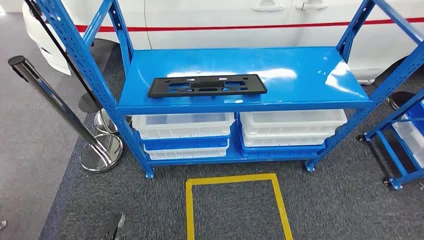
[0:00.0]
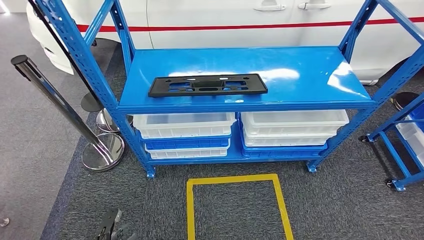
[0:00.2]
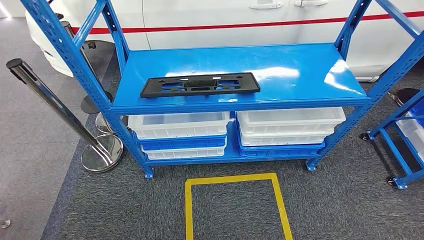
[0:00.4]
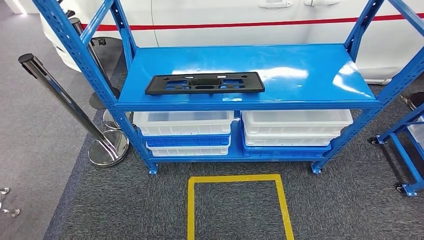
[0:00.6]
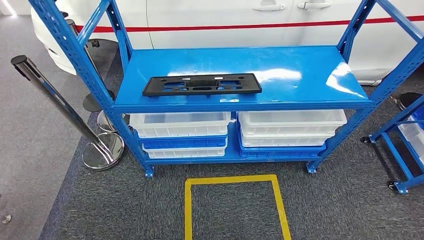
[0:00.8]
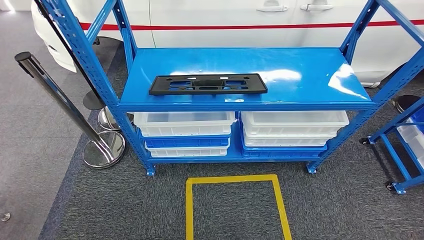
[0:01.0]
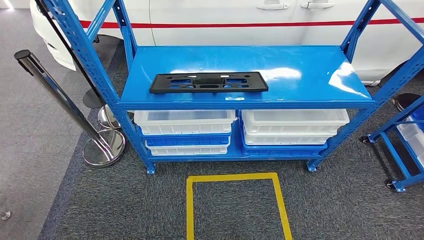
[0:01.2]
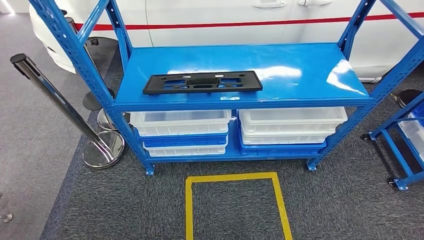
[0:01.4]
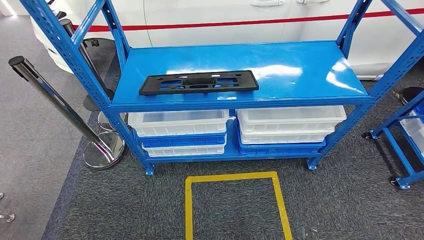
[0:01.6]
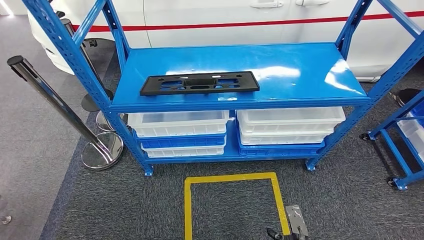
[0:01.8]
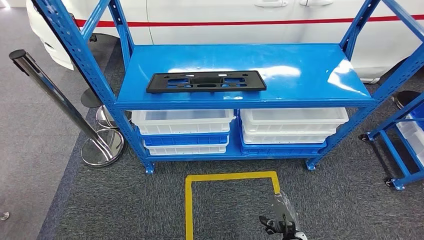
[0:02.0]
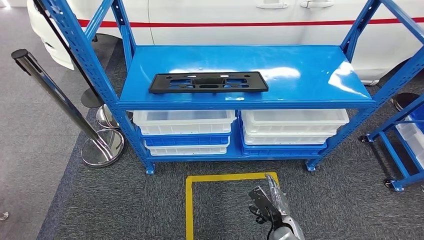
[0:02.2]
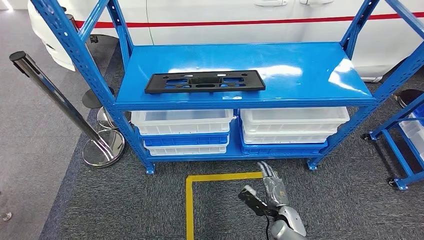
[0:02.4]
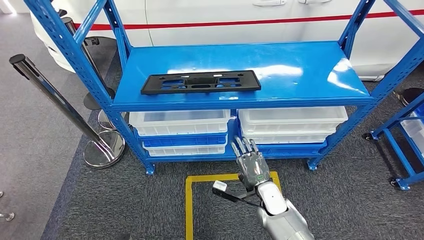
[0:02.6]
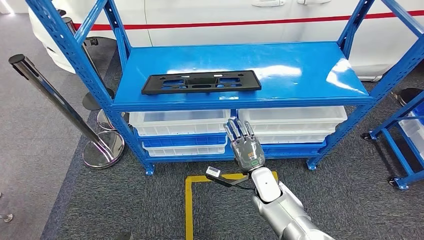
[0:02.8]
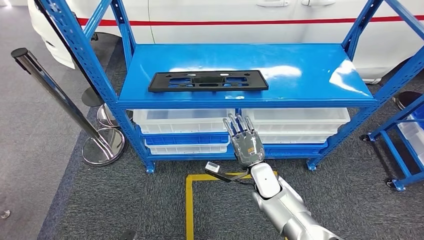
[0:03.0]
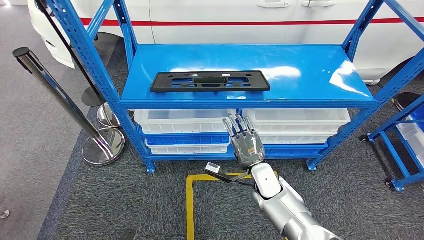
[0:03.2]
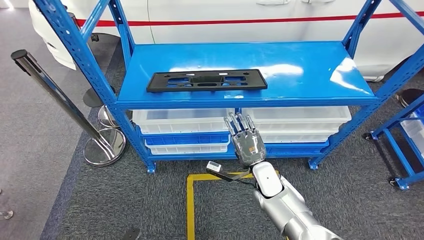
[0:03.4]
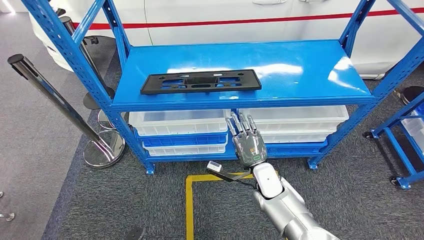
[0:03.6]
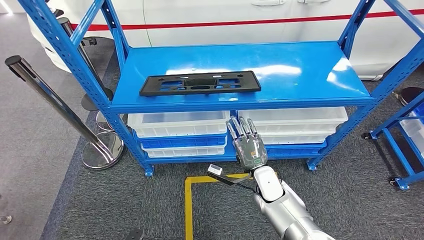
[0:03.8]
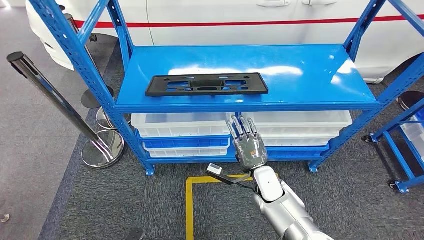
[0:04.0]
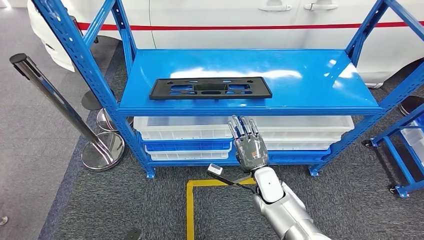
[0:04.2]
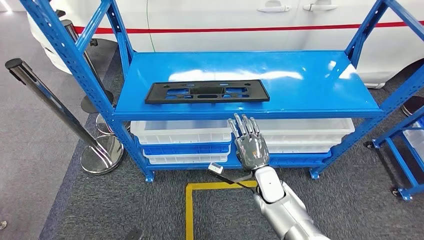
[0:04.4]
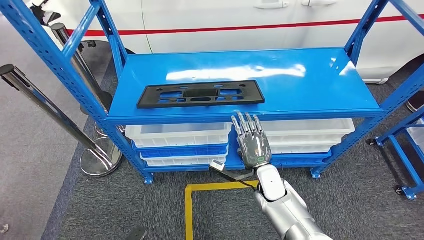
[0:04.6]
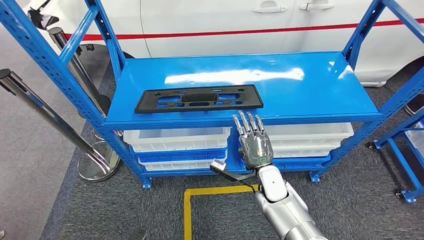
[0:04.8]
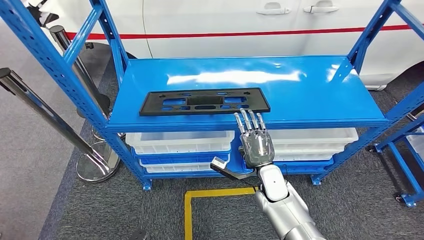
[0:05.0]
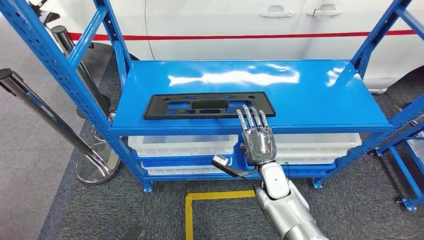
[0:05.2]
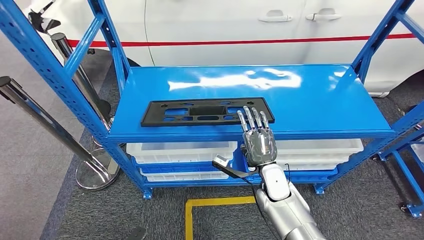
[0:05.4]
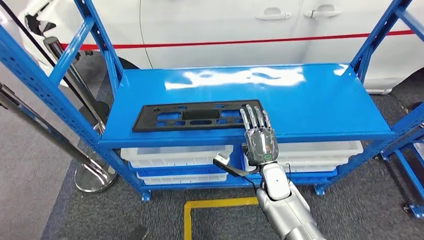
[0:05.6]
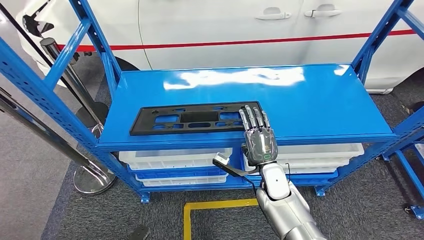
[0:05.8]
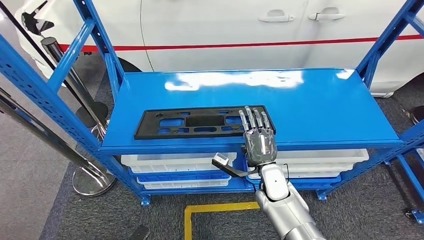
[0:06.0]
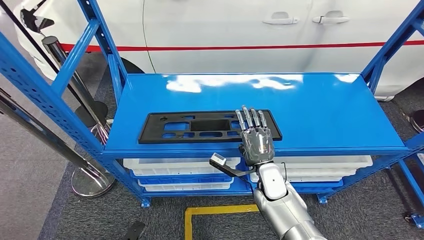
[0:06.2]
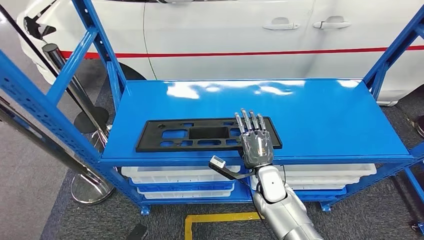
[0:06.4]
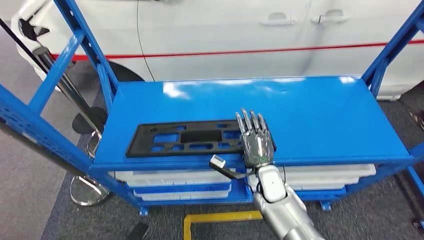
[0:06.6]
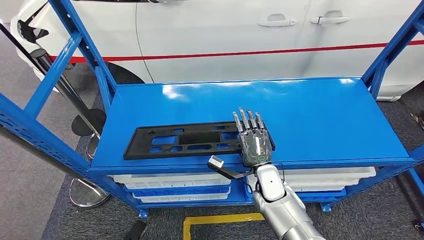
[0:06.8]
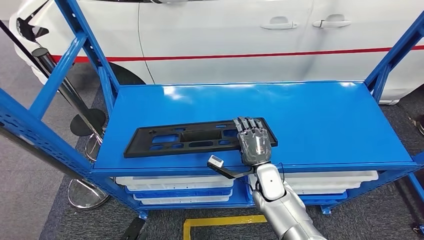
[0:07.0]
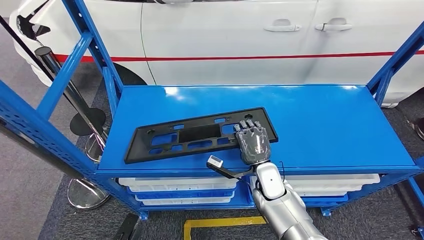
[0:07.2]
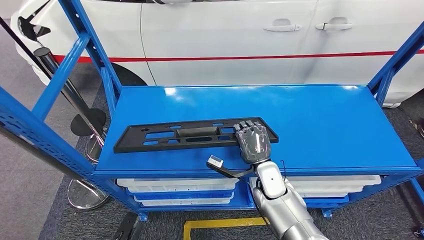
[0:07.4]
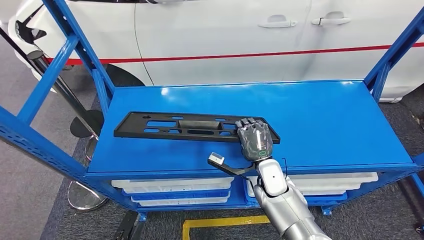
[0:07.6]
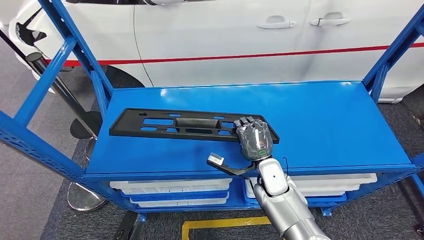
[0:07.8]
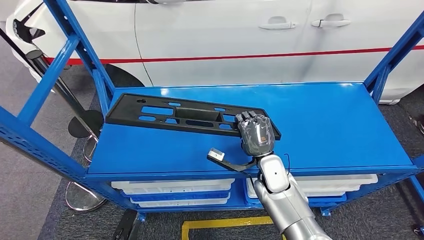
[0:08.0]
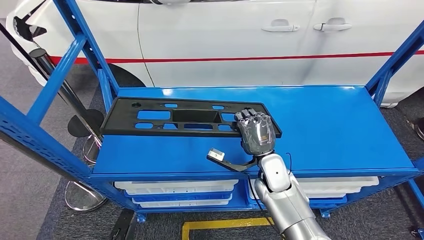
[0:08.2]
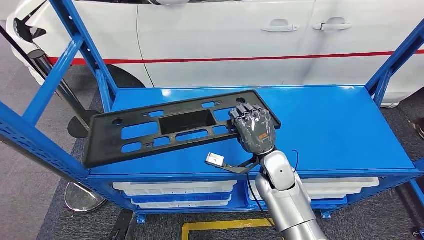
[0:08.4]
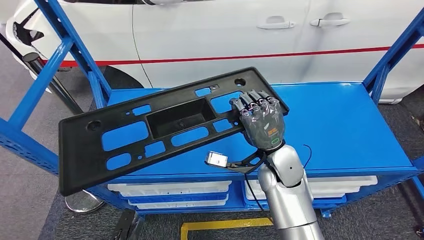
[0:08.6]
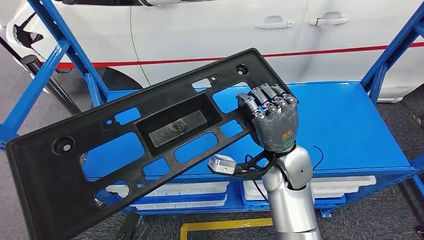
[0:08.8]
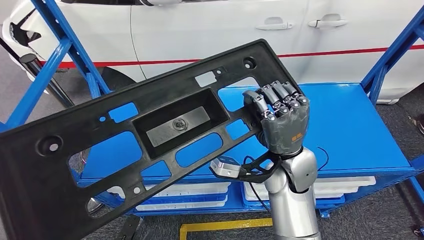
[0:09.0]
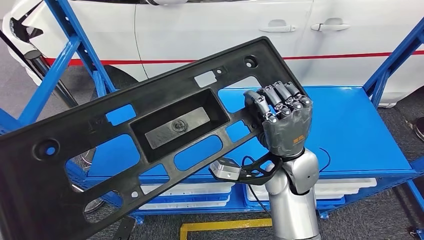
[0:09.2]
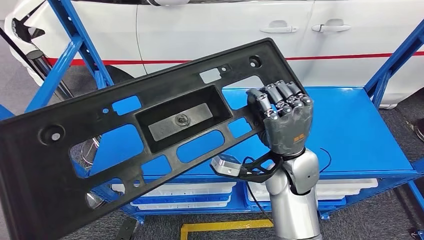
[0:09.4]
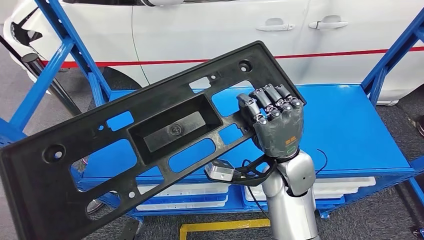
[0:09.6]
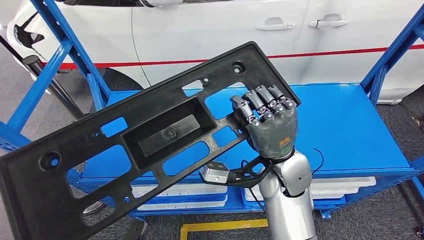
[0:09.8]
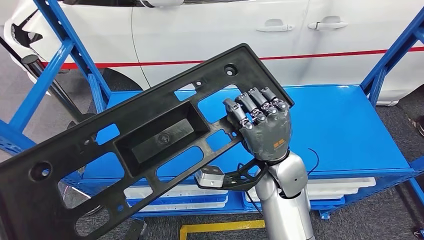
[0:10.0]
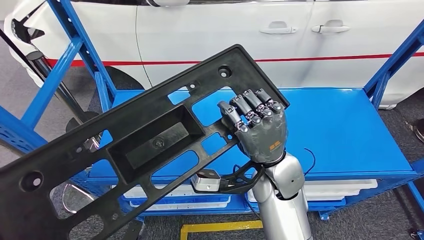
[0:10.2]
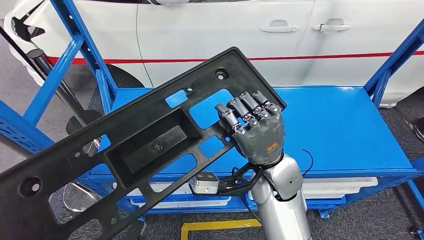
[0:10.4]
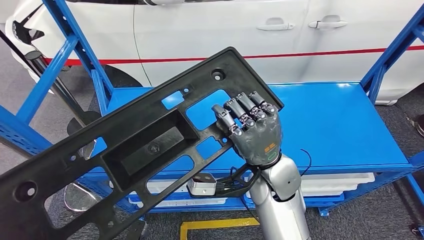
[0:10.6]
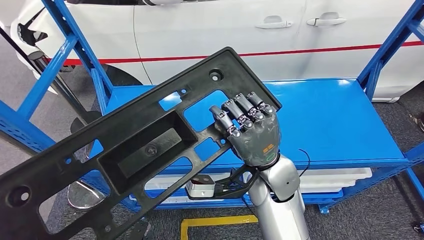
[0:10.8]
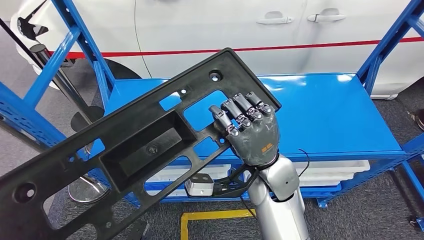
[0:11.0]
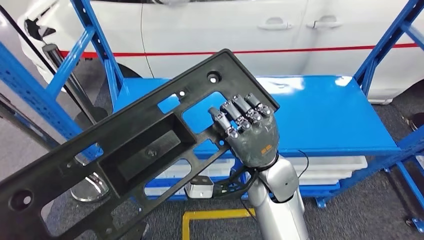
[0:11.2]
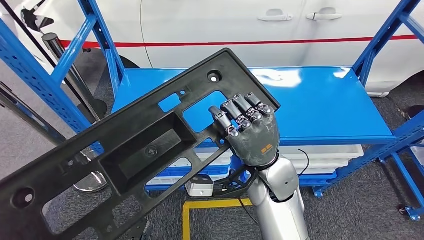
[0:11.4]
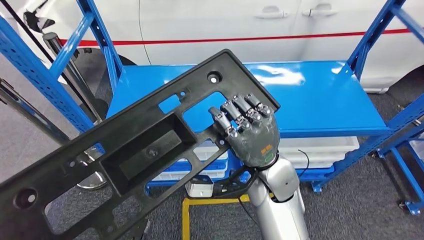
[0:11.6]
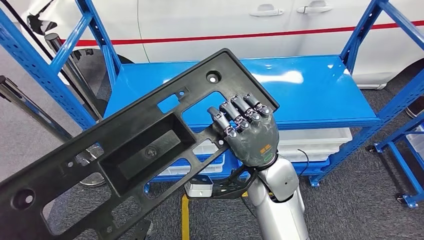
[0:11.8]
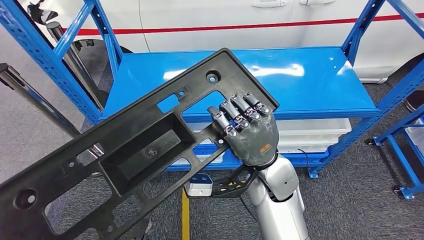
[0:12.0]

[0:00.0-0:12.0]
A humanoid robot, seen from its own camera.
Step, 0:00.0 to 0:08.8: Pick up the large material from the shelf.

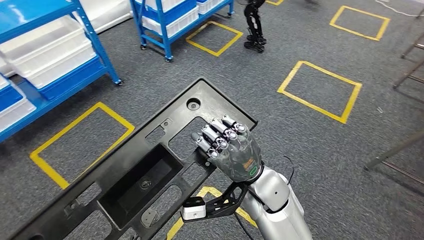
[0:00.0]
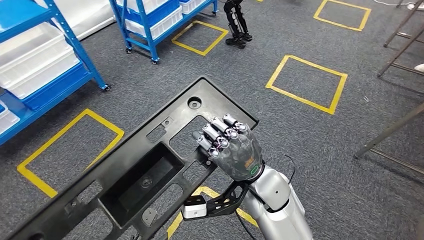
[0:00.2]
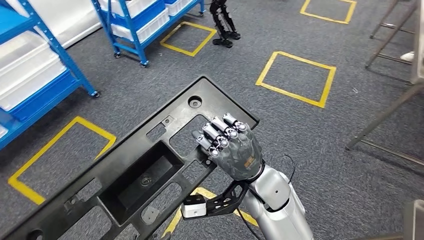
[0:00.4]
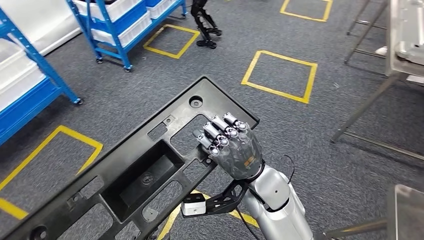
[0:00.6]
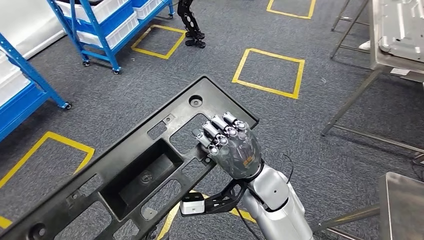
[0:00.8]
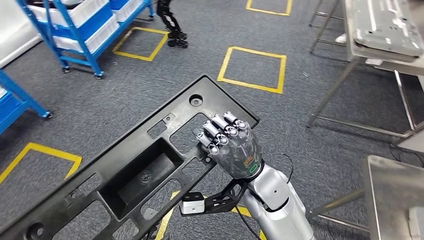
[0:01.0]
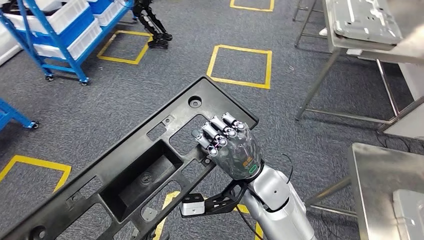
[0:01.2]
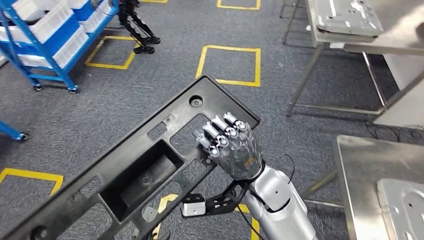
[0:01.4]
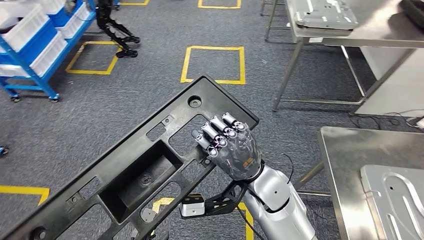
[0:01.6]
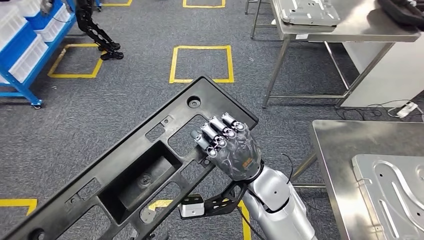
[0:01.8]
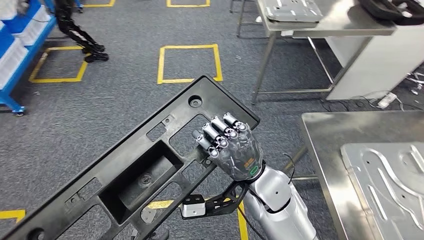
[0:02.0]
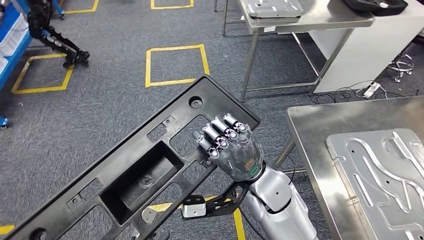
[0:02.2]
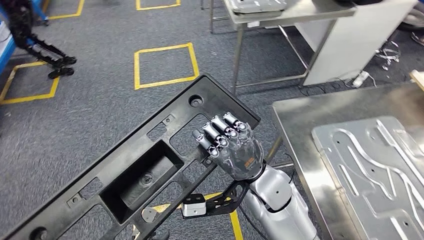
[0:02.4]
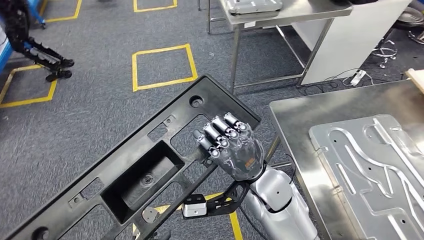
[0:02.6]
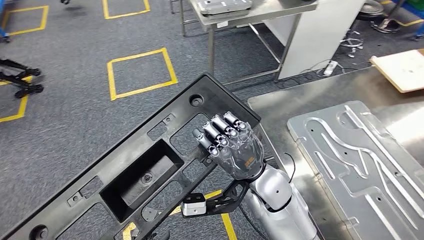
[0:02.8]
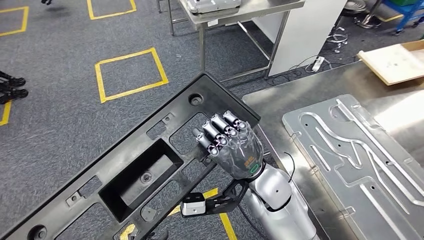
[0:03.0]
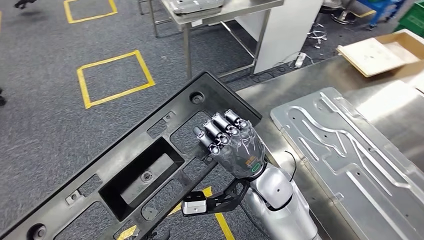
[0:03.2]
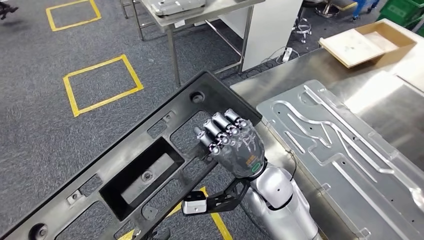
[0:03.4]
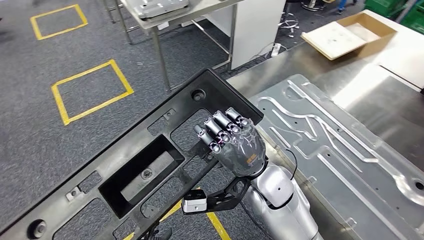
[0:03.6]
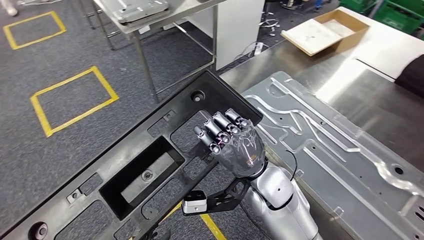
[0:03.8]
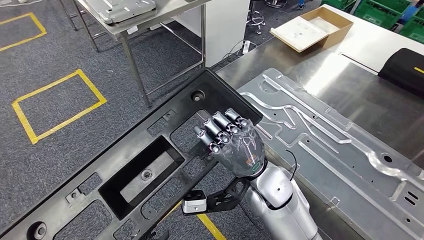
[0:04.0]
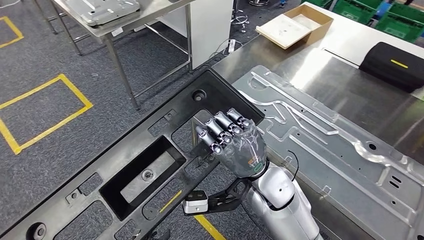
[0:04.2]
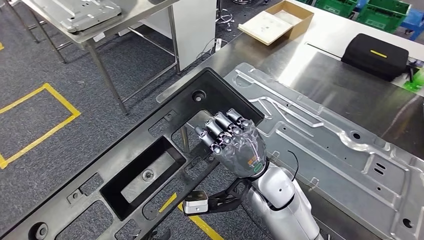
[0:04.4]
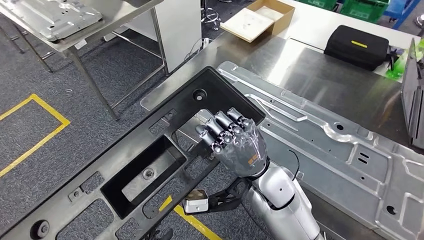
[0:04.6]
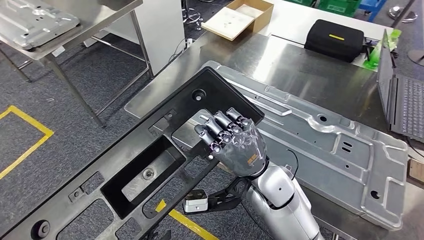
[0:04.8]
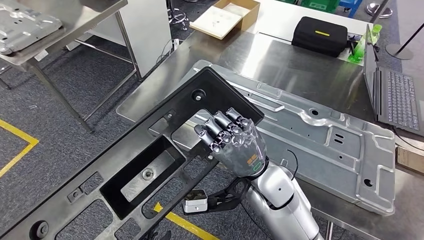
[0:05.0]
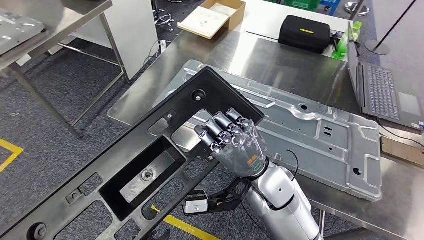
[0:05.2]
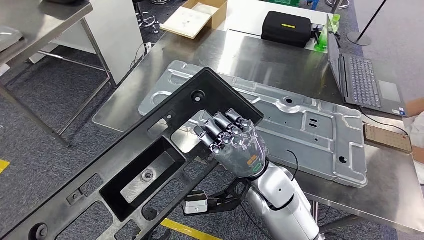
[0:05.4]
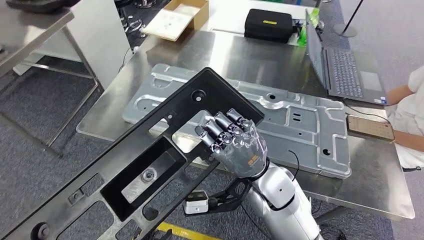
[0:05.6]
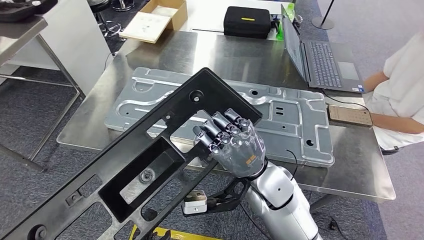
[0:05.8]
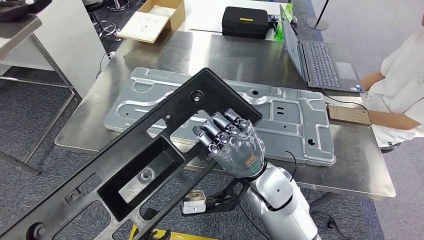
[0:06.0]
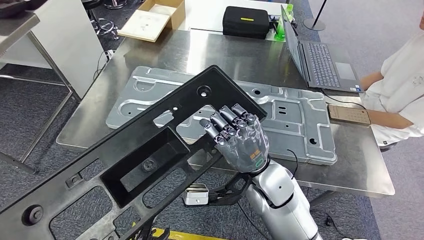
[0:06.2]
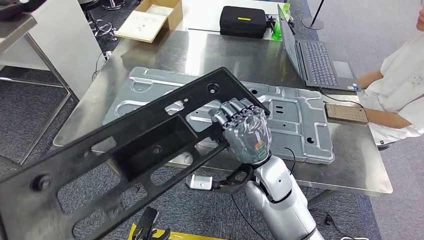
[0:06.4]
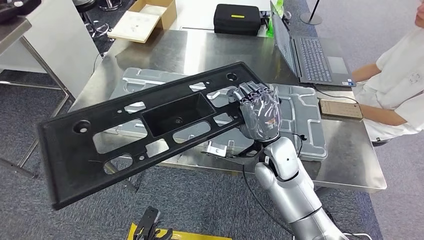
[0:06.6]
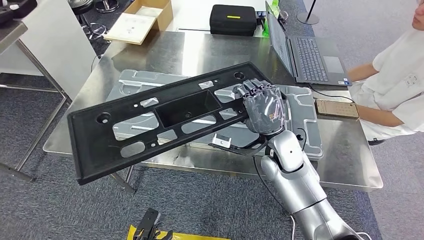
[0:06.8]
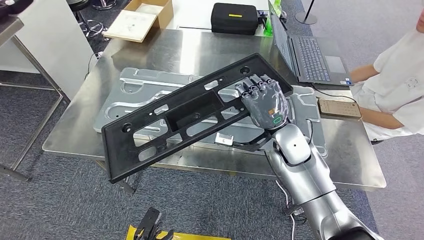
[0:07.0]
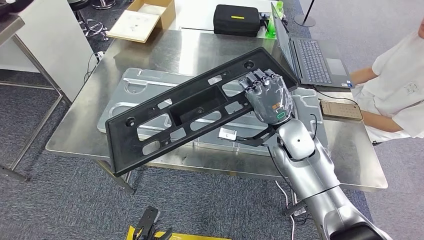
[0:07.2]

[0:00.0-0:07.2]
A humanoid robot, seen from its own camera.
Step, 0:00.0 to 0:04.6: Move the large material to the workbench.
